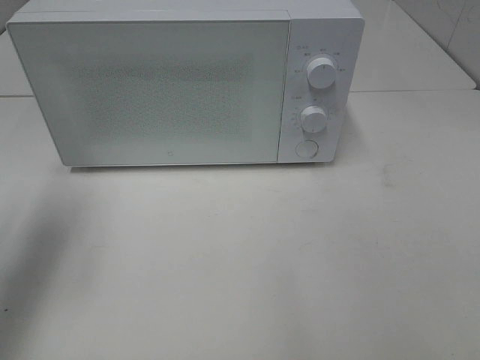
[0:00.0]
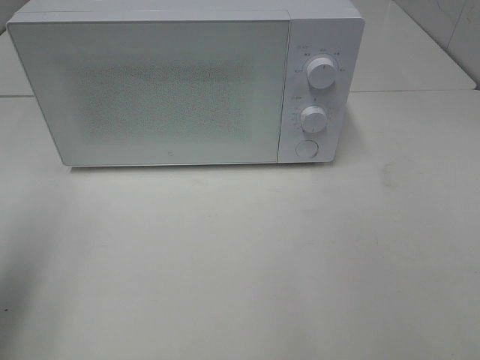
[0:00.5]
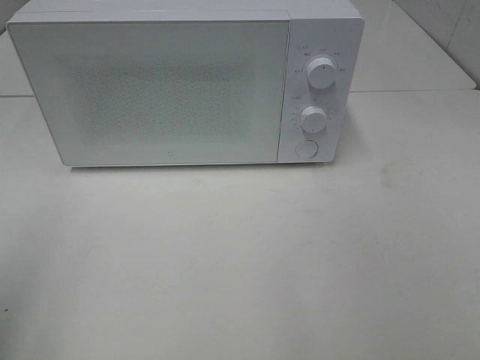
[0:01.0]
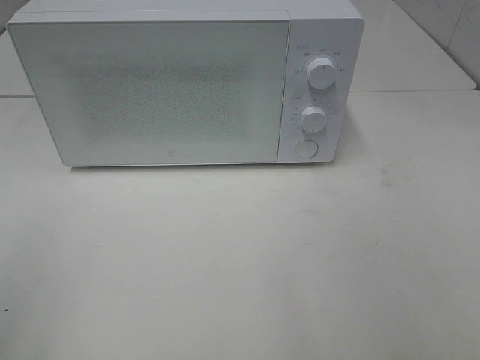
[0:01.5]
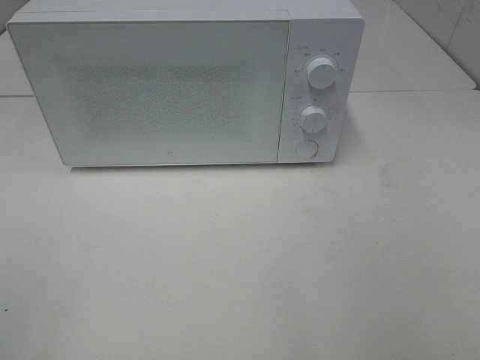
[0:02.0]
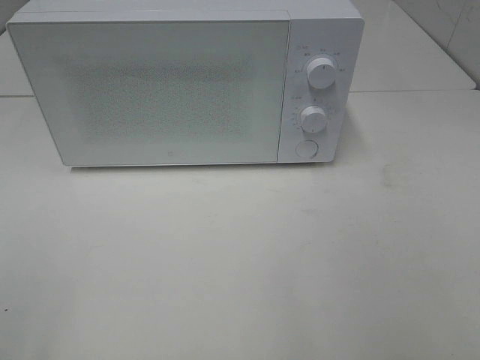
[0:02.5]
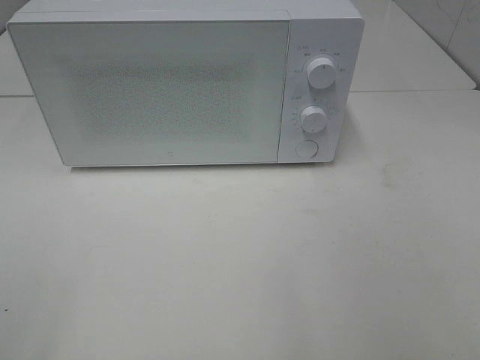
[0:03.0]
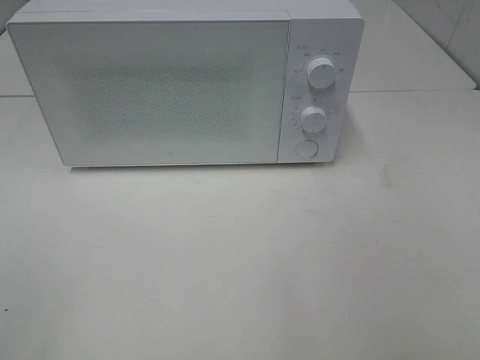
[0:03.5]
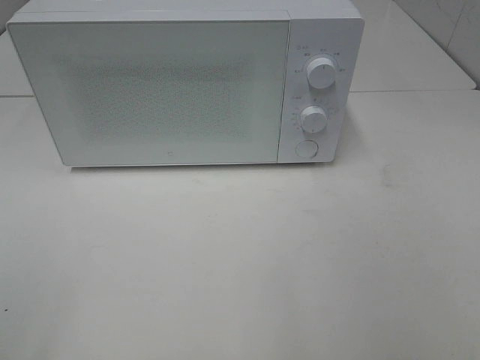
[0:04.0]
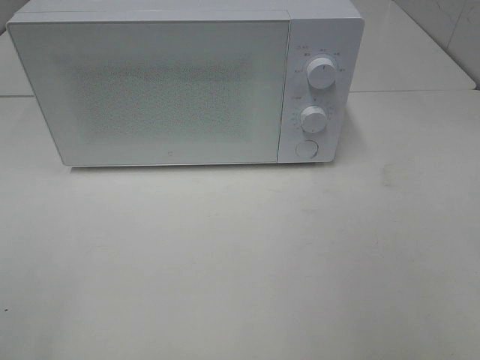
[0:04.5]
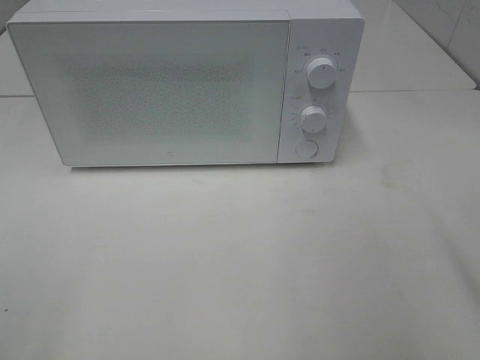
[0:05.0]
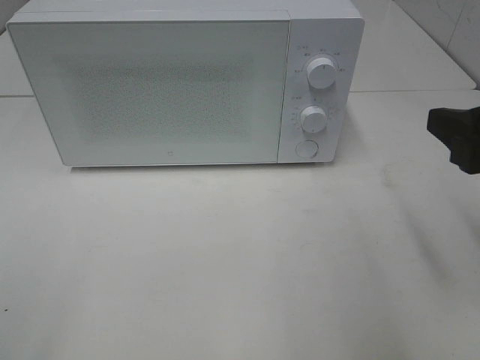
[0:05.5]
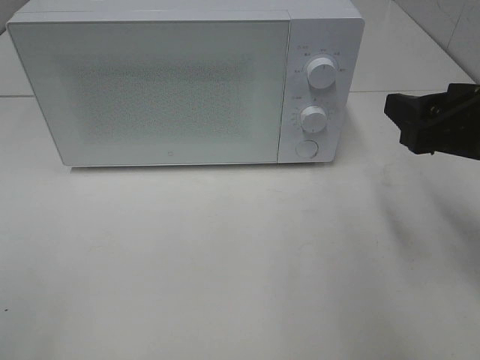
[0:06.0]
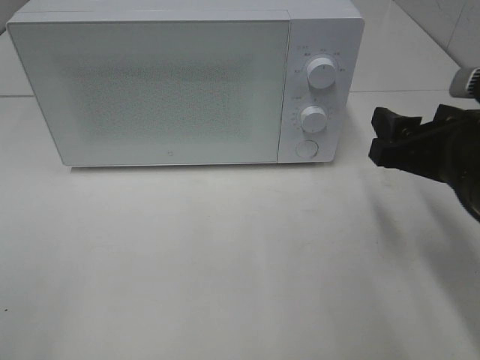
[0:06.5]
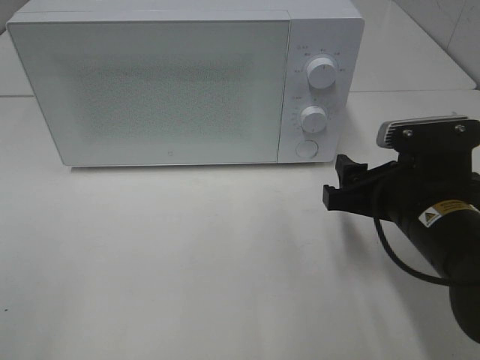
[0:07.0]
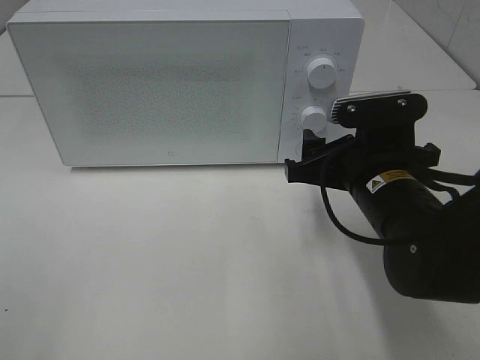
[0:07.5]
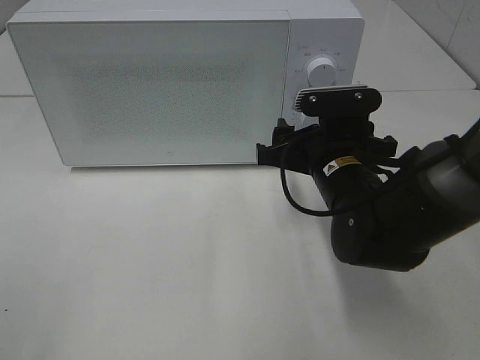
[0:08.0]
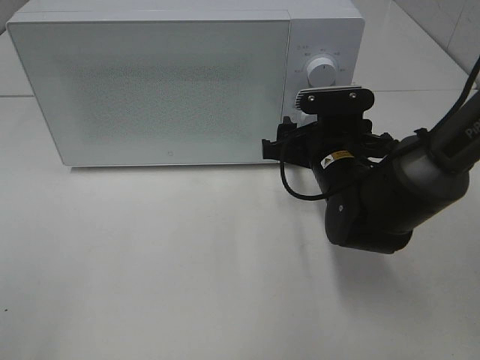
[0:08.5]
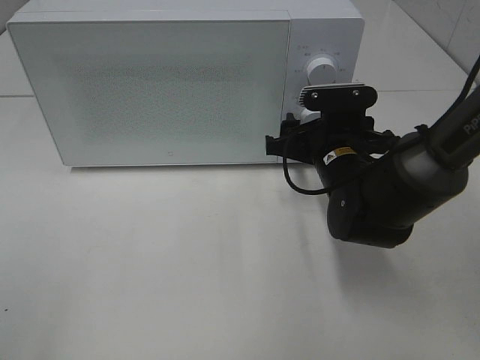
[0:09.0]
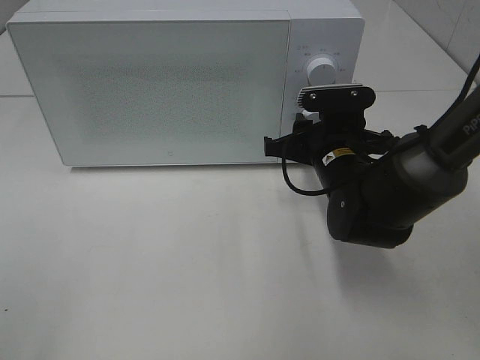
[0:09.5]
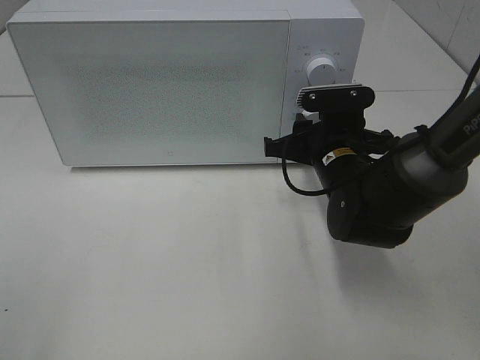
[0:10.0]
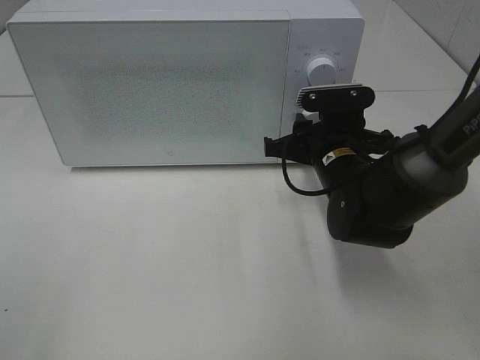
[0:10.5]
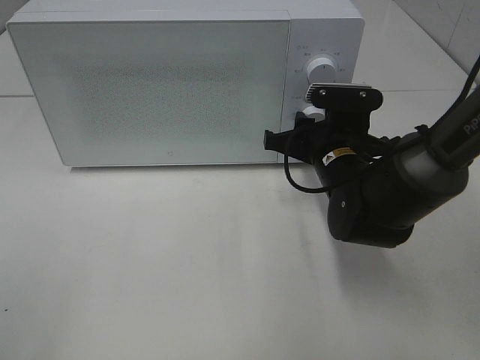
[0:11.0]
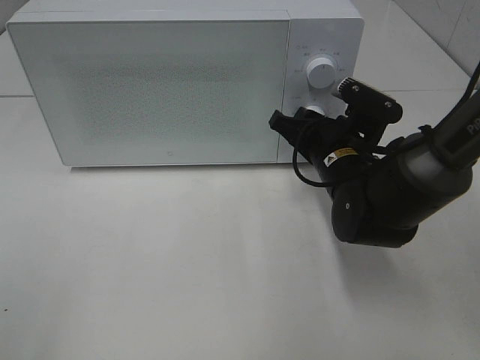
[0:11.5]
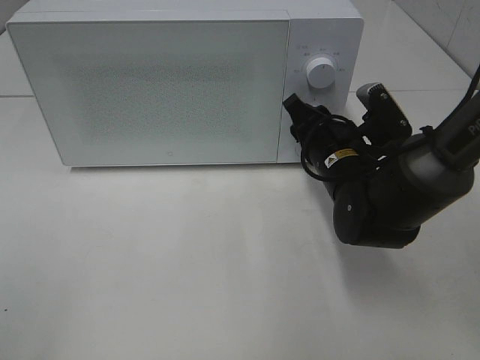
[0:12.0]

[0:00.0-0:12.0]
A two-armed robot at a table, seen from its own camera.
Task of the whole recording: Heat the burger.
0:00.0 to 0:02.0: The left gripper travels backward by roughly 25 cm.
0:02.0 to 0:04.0: Both grippers stay about where they are.
0:04.0 to 0:06.0: The right gripper heads forward, covering about 20 cm.
0:06.0 to 0:08.0: The right gripper moves to the left, downward and forward, roughly 15 cm.
0:08.0 to 0:10.0: The right gripper closes its fingers.

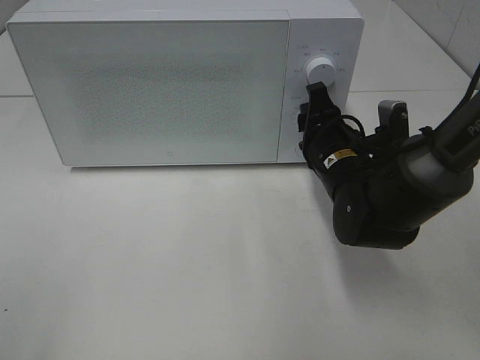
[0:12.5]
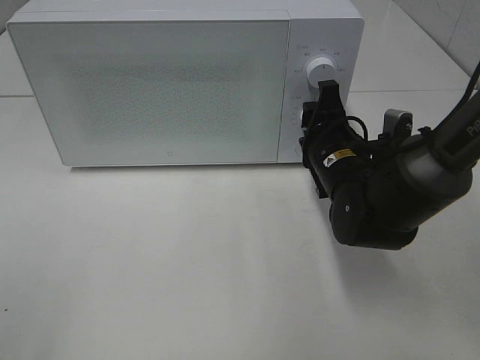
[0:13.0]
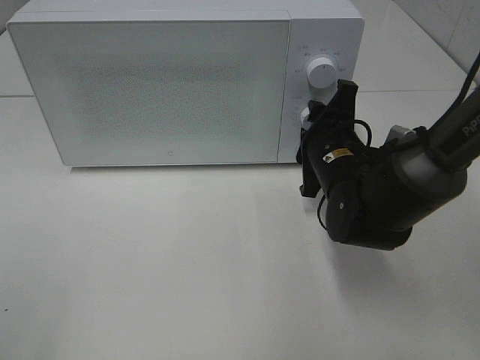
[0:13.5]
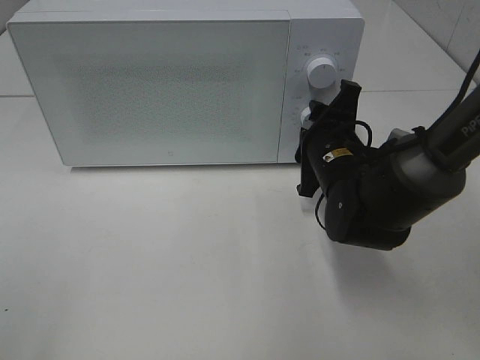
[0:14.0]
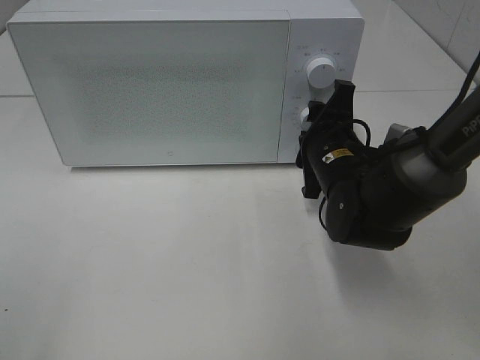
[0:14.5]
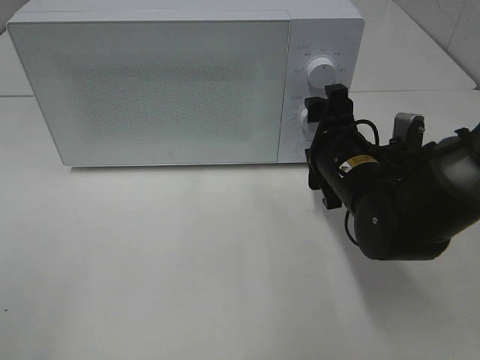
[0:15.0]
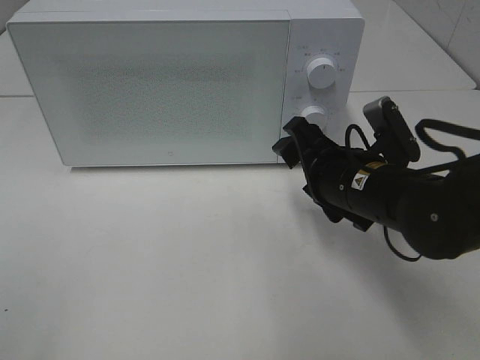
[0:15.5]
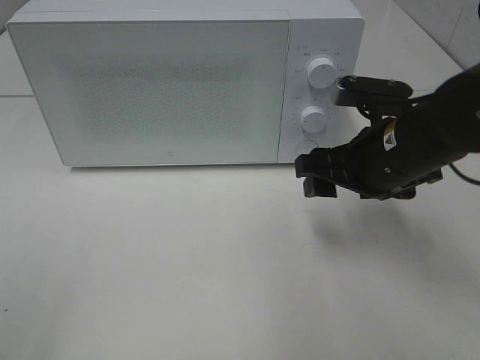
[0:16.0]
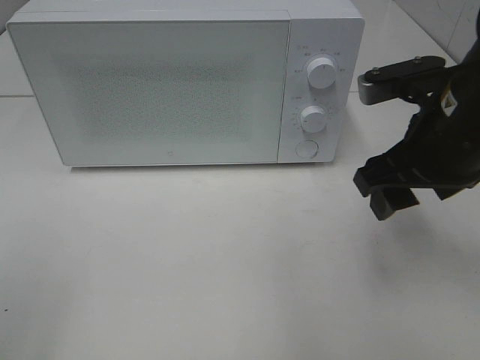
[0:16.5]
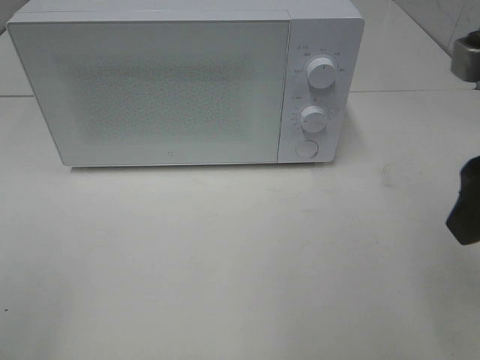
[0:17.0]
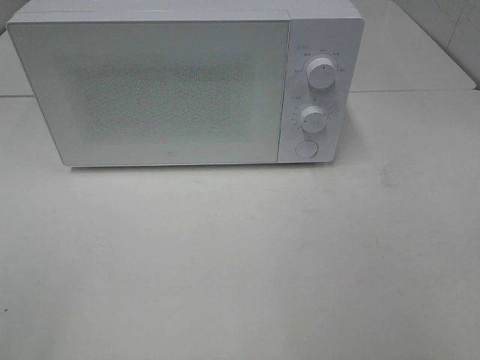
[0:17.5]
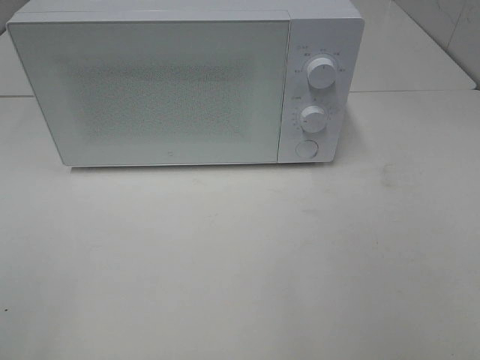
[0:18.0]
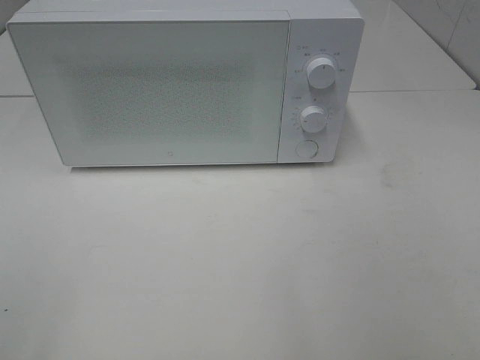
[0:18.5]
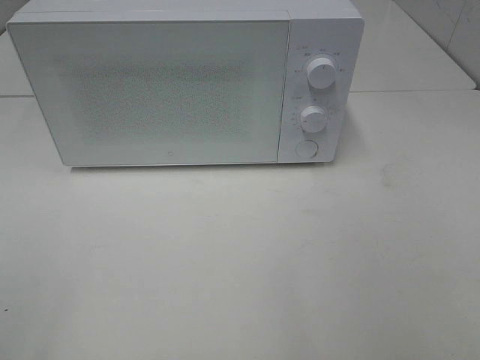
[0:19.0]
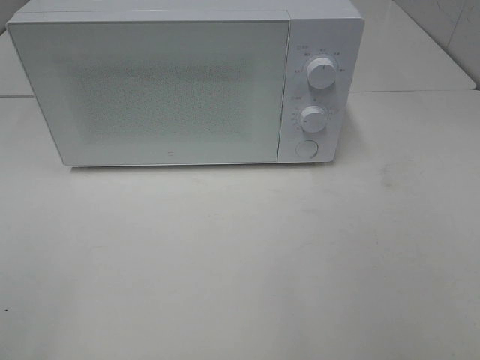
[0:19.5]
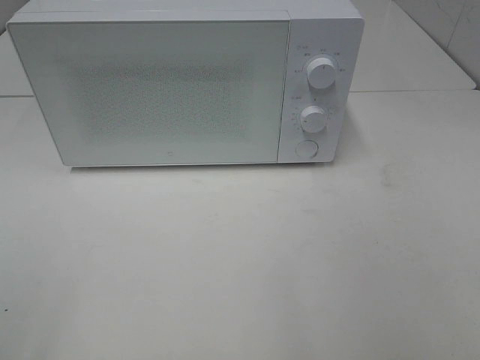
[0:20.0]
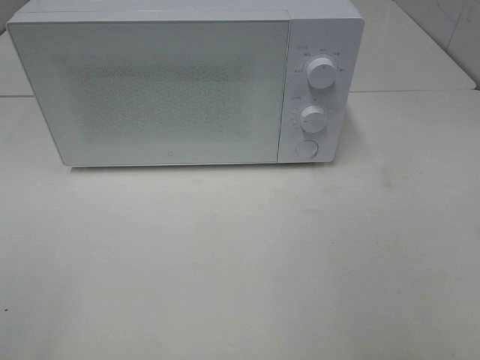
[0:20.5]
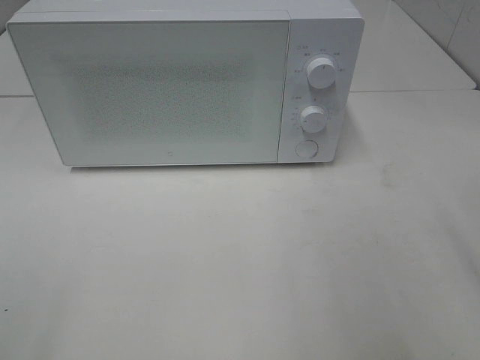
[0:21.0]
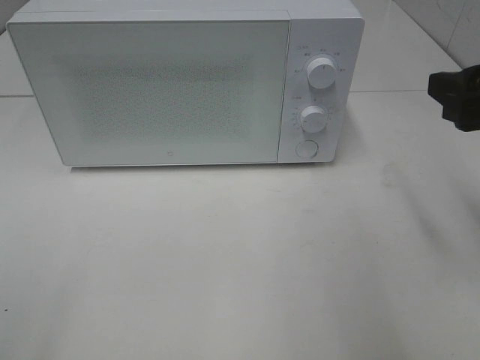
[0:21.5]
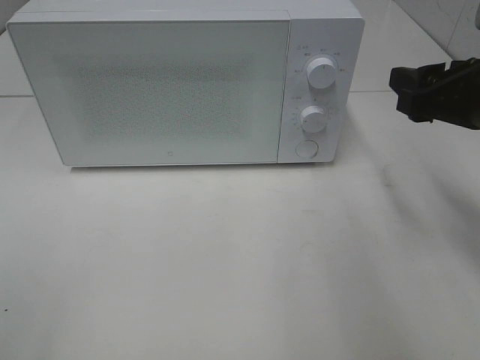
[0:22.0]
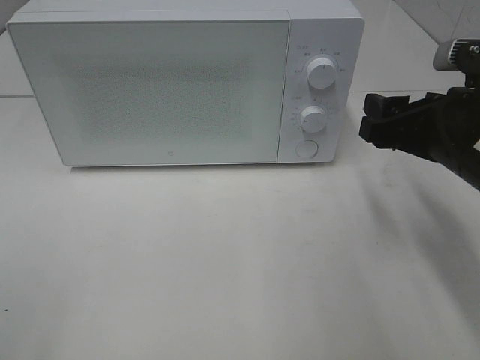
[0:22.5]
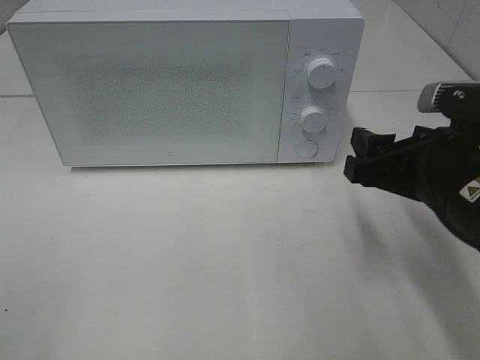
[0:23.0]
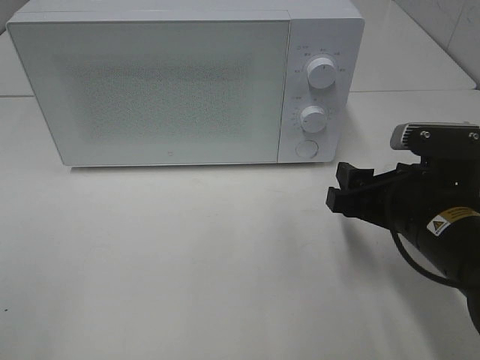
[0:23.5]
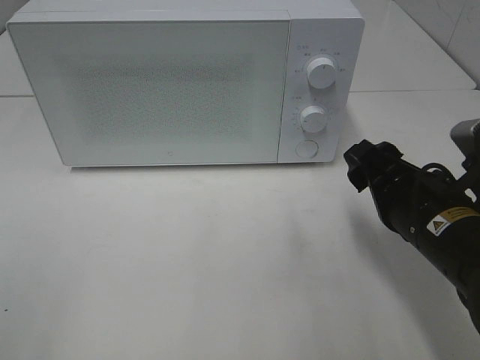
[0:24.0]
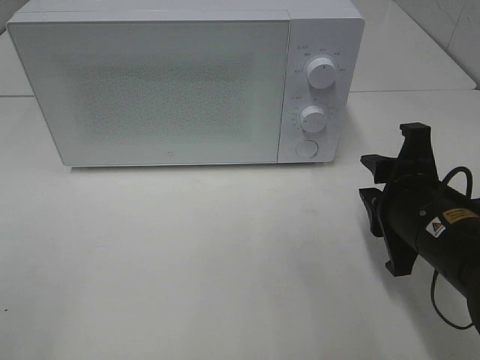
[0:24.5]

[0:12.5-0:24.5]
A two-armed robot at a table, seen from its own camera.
Task of the whole recording: Heat the burger.
Step, 0:12.5 to 0:15.0: Right hand: twist timer button.
0:14.5 to 0:16.5: The right gripper goes about 15 cm upward, backward and to the right.
0:16.5 to 0:18.5: The right gripper heads backward and to the right, covering some 25 cm.
0:20.5 to 0:22.5: The right gripper heads forward, downward and to the left, covering roughly 20 cm.
0:22.5 to 0:24.5: The right gripper goes roughly 5 cm downward.

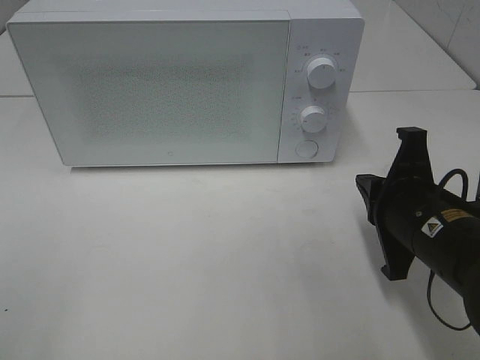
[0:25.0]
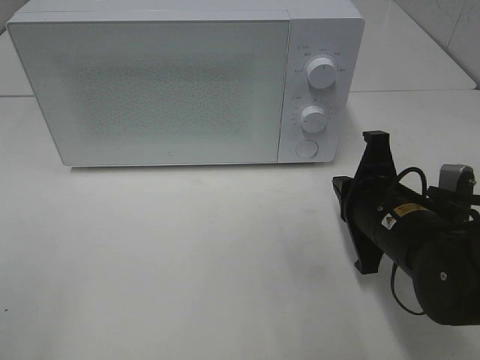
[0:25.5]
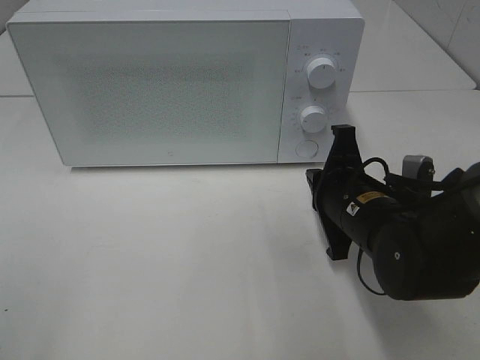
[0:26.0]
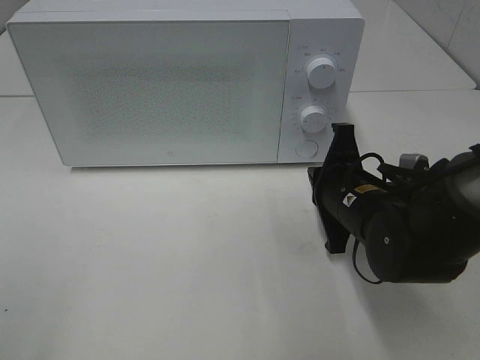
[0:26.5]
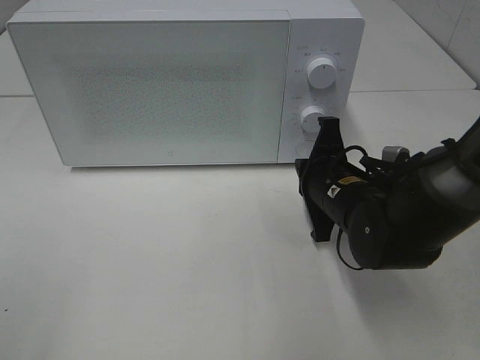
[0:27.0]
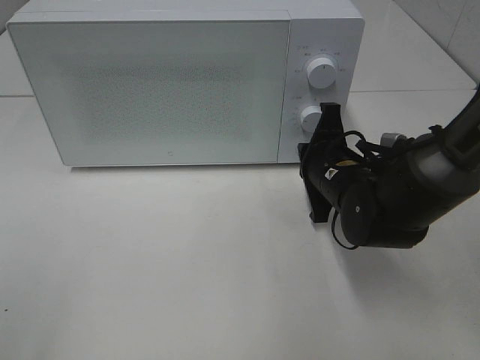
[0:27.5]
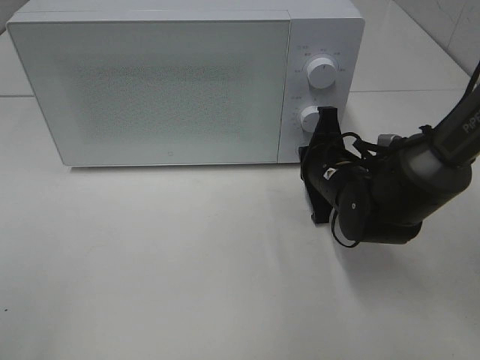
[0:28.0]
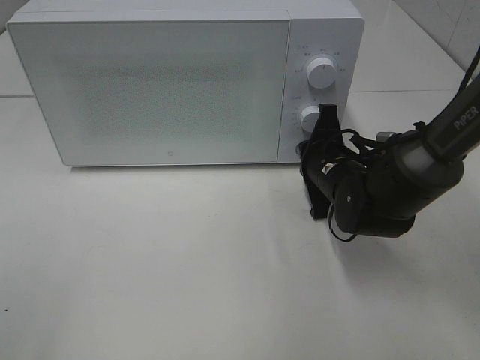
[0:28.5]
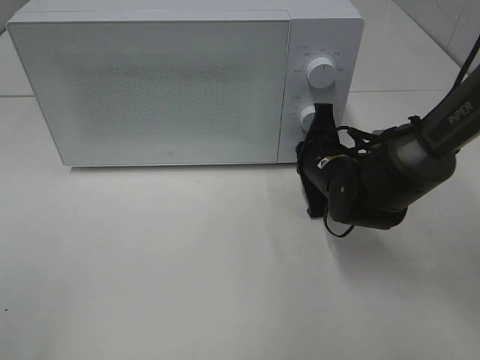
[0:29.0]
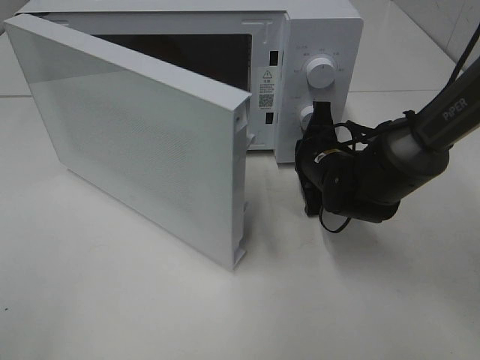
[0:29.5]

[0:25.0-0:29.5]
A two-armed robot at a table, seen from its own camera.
Task of the whole recording: Heat the burger.
0:25.0 to 0:27.0: The right gripper shifts about 10 cm forward and to the left.
0:27.0 to 0:29.5: The right gripper is displaced forward by about 5 cm.
